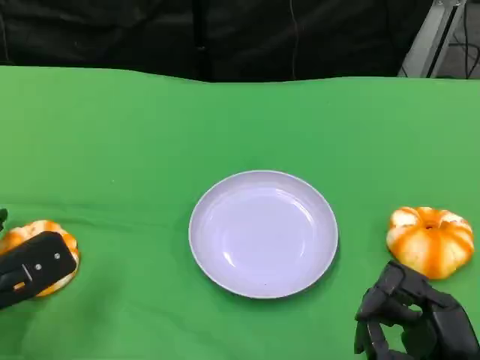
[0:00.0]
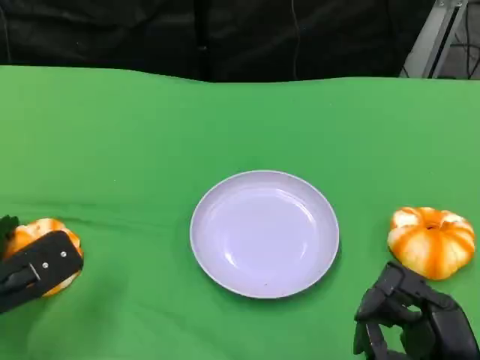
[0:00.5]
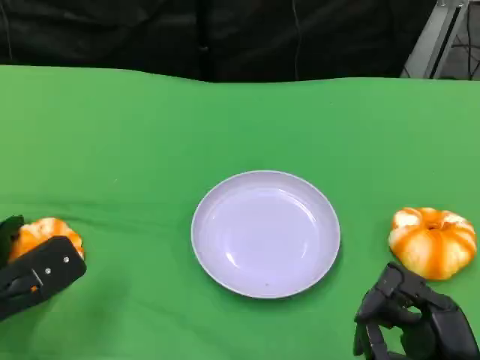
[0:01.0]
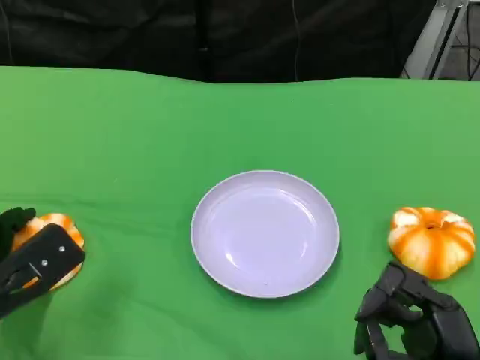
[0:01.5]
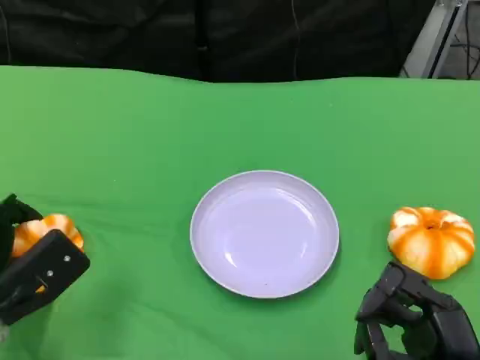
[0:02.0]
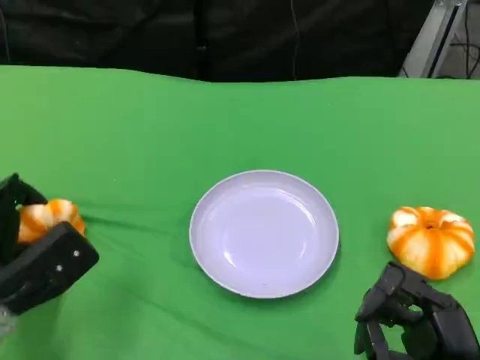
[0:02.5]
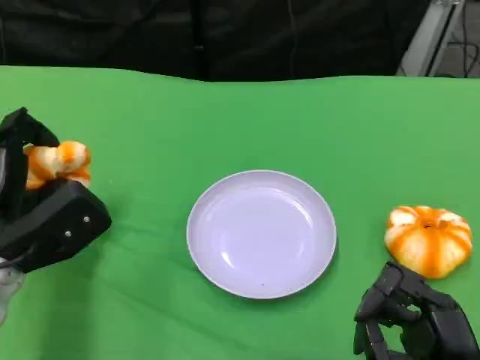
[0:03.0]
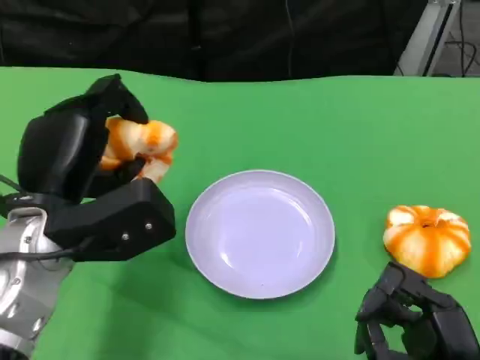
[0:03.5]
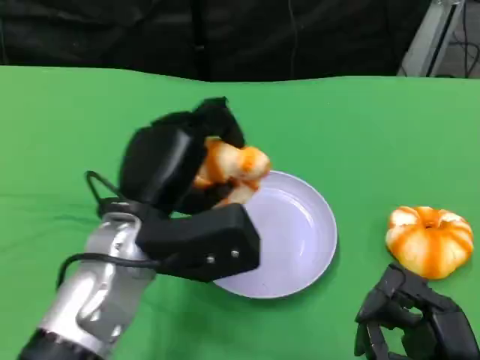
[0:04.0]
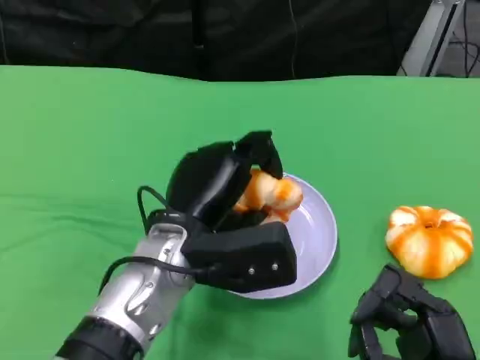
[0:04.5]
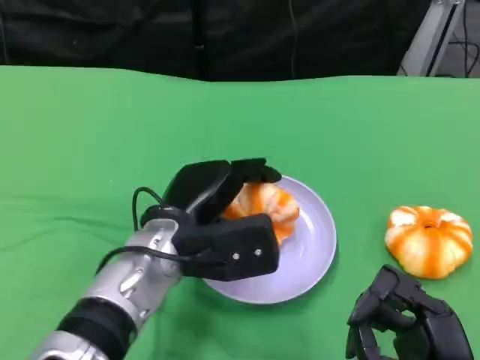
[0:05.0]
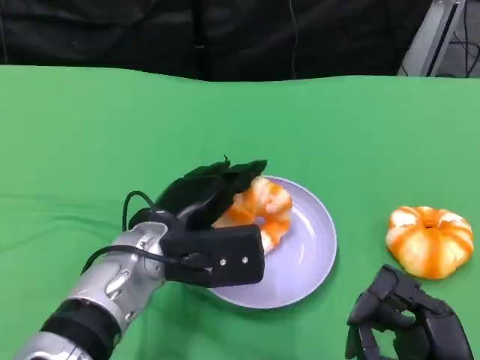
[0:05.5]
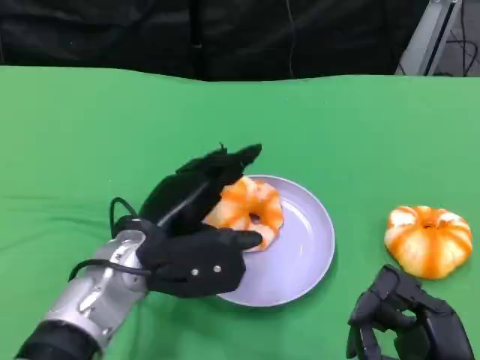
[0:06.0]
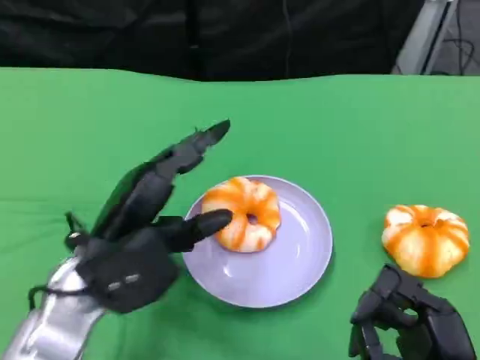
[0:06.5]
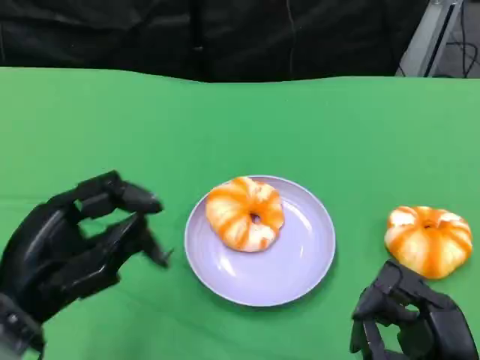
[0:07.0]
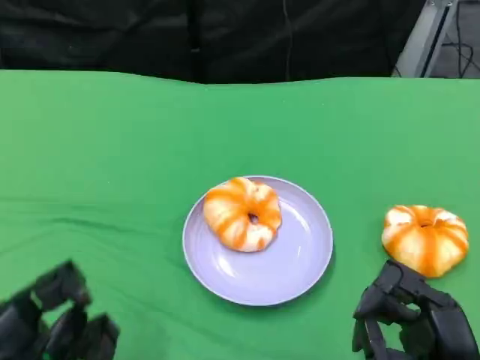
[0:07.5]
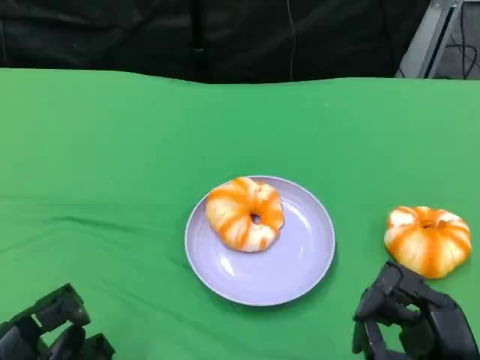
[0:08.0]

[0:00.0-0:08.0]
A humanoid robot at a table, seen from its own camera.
Task of the whole recording: Grasp the bread from the table and place it into the plate.
0:00.0 to 0:02.0: The hands move only a little.
0:02.0 to 0:04.0: The left hand heads to the right and upward, covering roughly 20 cm.
0:06.0 to 0:08.0: The left hand heads to the left and backward, covering roughly 20 cm.

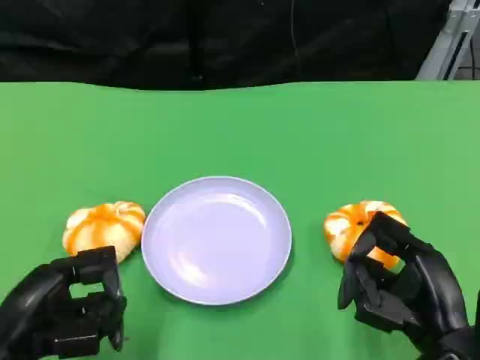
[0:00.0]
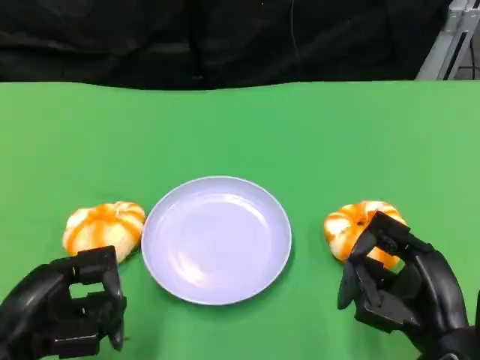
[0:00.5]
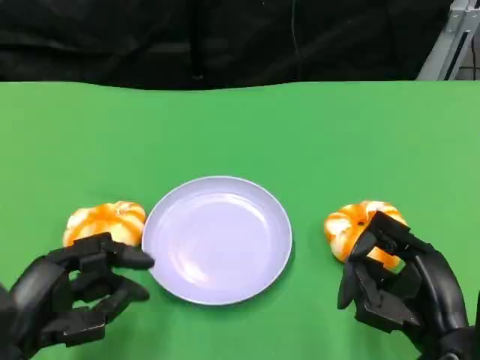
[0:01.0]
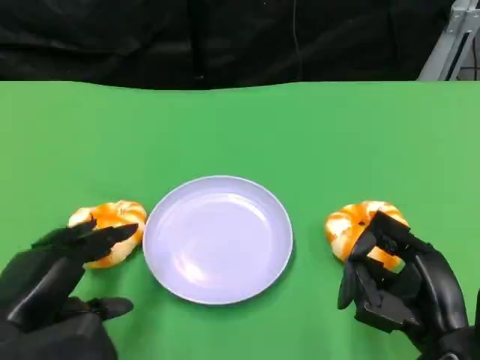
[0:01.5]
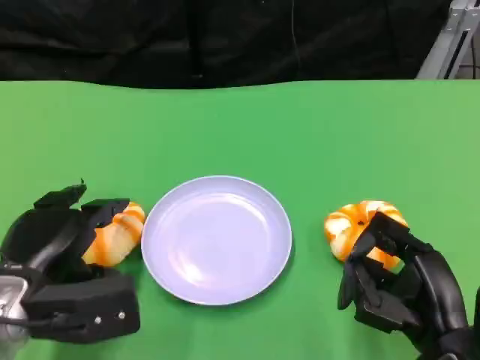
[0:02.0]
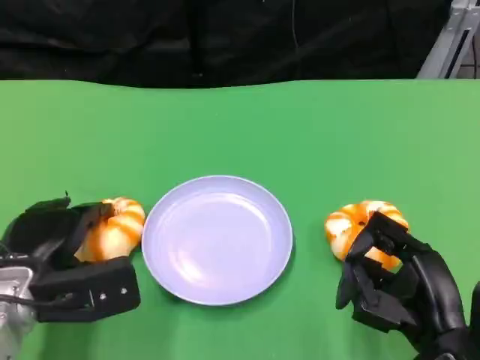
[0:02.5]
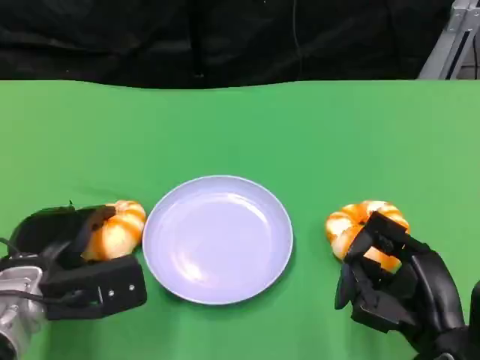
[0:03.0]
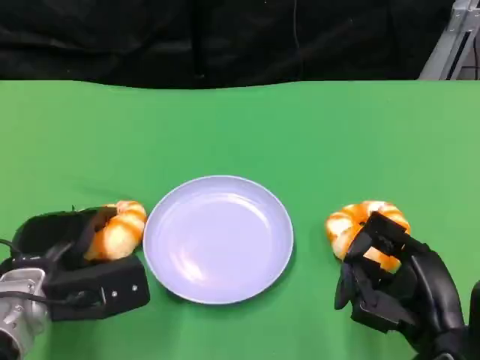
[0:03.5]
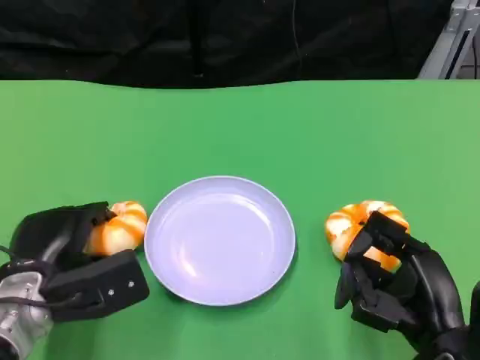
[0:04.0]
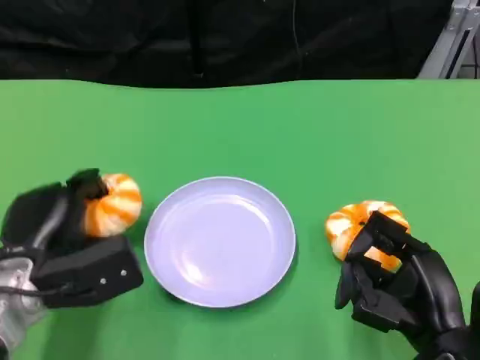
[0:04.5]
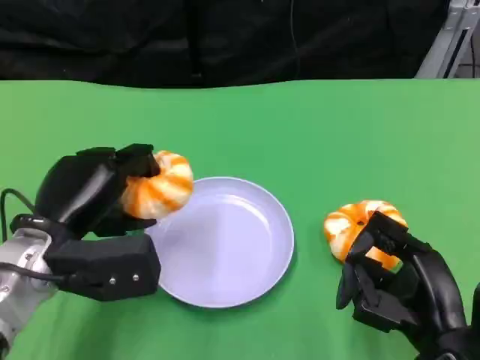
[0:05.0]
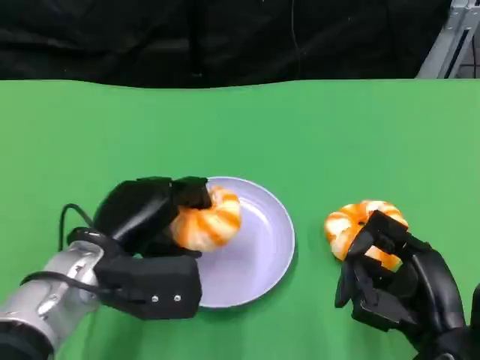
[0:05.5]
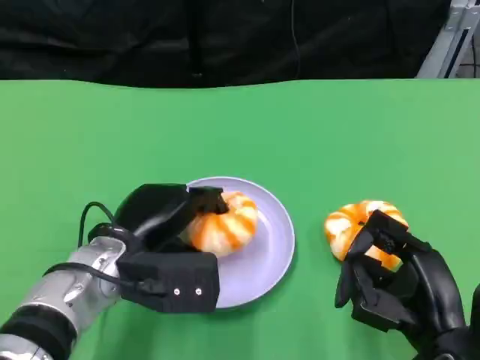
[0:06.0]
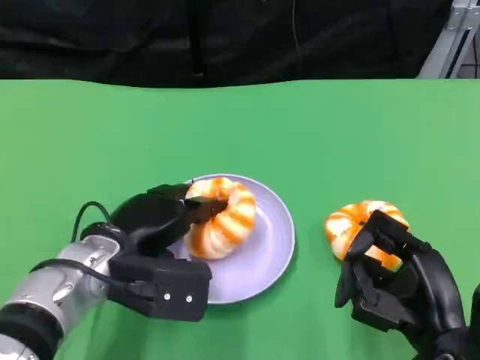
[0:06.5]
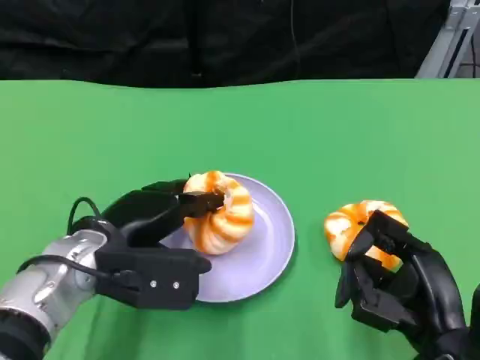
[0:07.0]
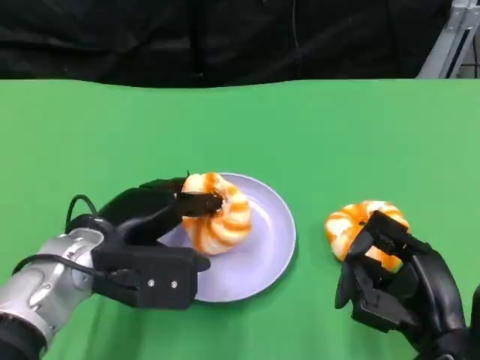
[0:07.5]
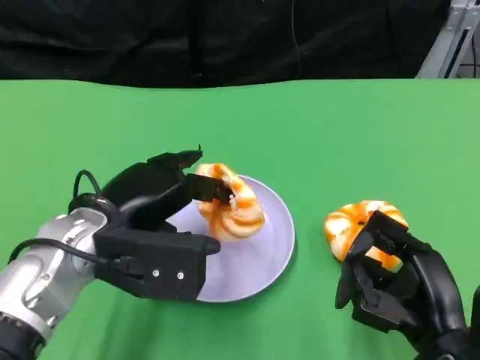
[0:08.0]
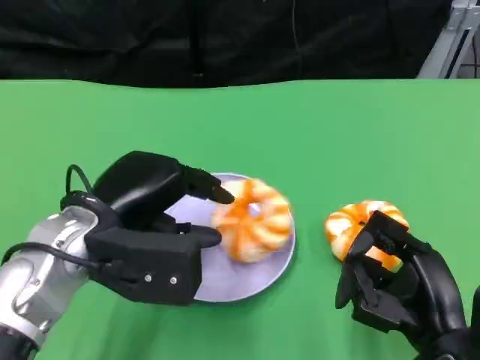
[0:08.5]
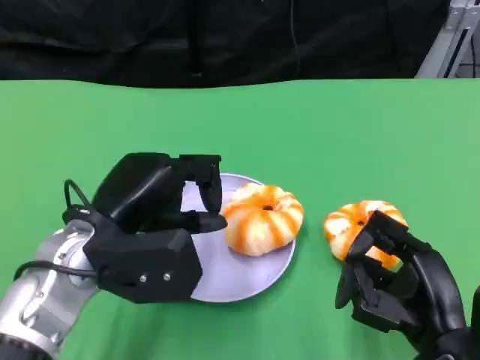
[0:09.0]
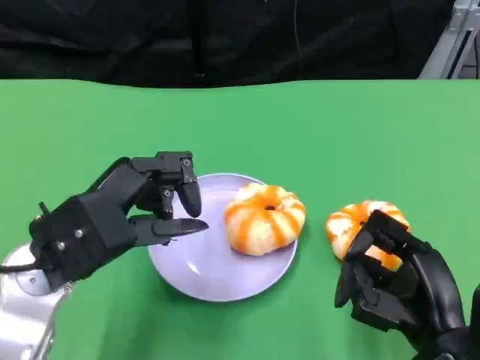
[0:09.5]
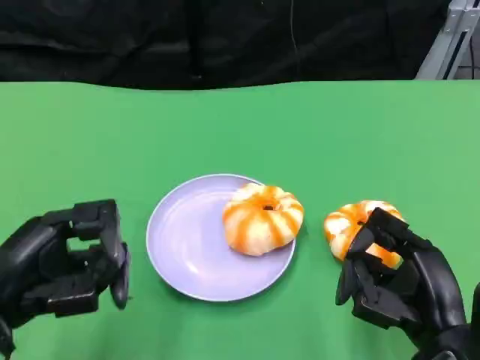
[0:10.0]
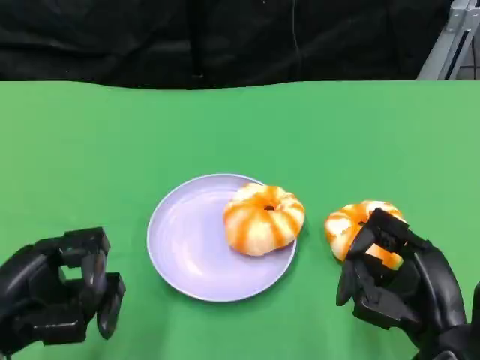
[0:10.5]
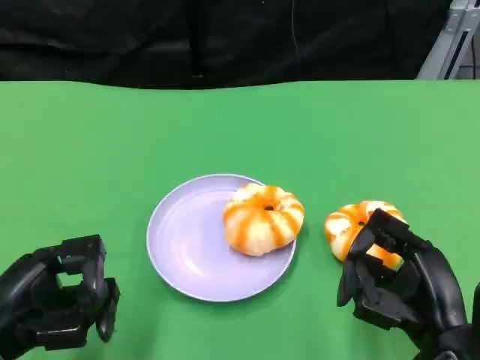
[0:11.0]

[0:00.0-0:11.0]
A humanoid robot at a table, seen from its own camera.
Task of the whole recording: Grasp the bread from the table and place it into the plate.
0:00.0 to 0:02.0: The left hand moves forward, some 5 cm.
0:02.0 to 0:03.5: The hands make only small movements.
0:03.5 to 0:05.5: The left hand heads to the right, covering approximately 5 cm.
0:05.5 to 0:07.5: The hands make only small movements.
0:09.0 to 0:11.0: The left hand is displaced to the left, backward and downward by roughly 15 cm.

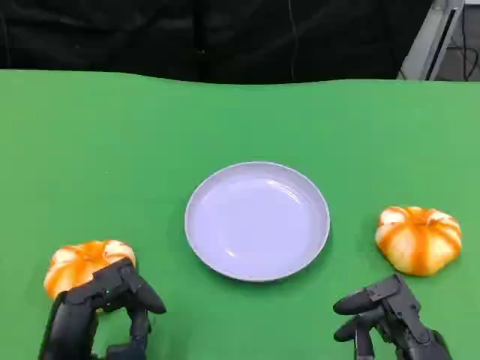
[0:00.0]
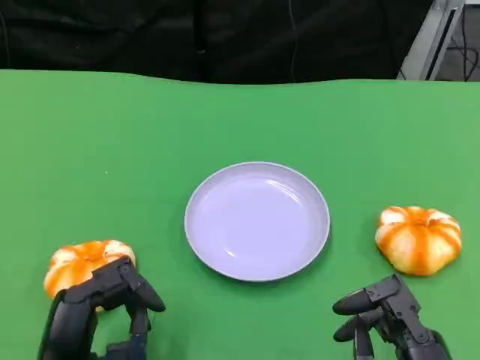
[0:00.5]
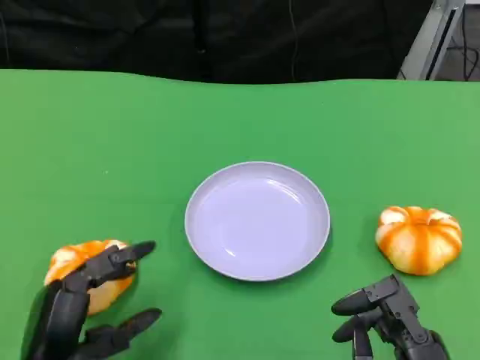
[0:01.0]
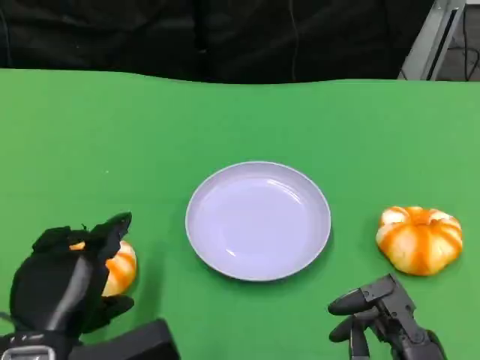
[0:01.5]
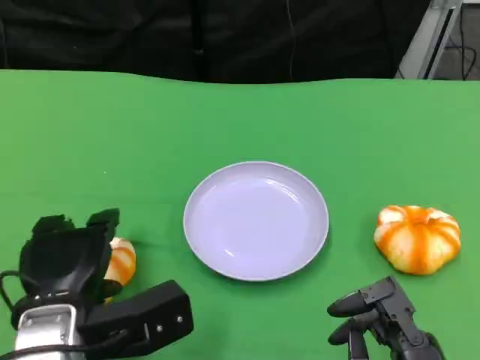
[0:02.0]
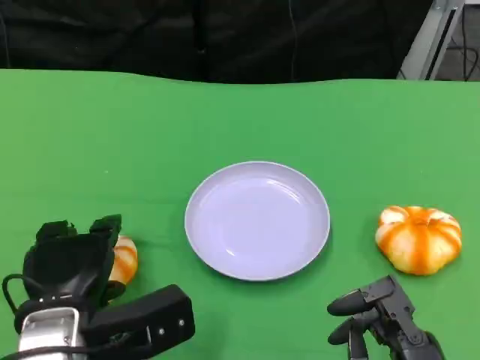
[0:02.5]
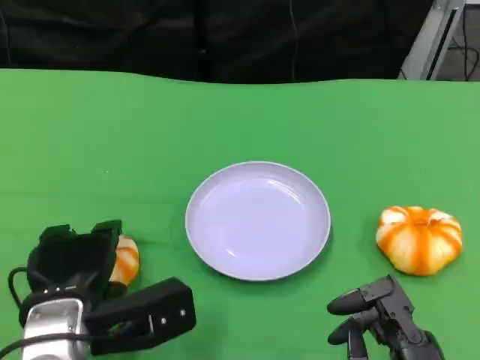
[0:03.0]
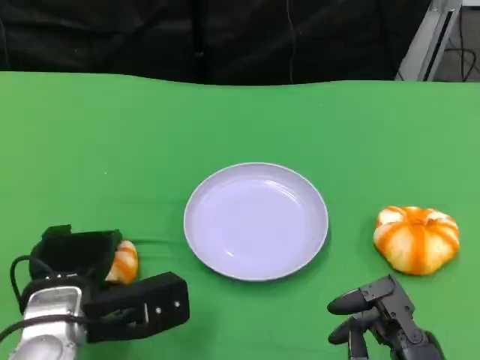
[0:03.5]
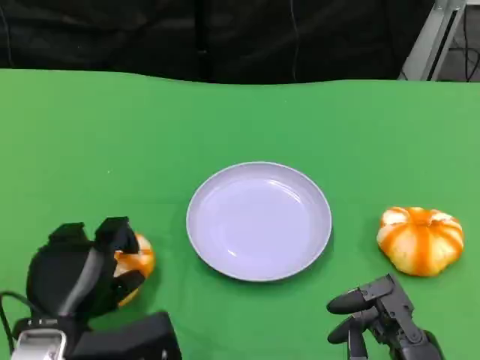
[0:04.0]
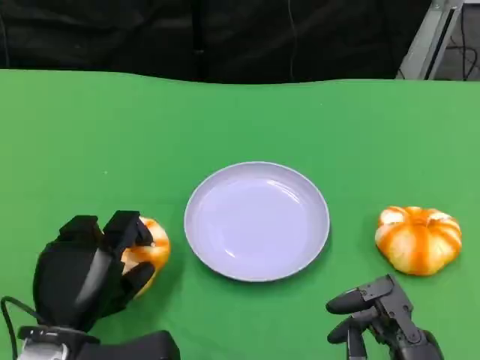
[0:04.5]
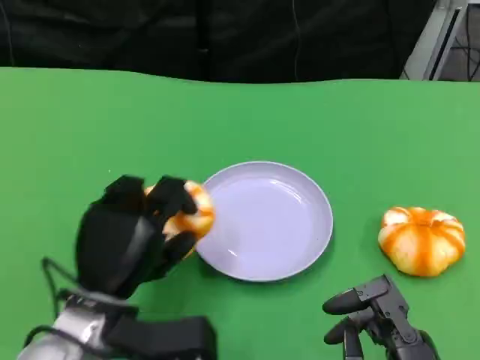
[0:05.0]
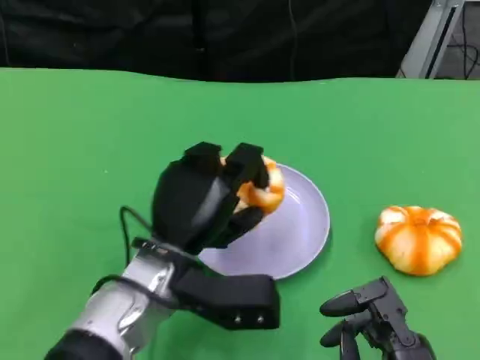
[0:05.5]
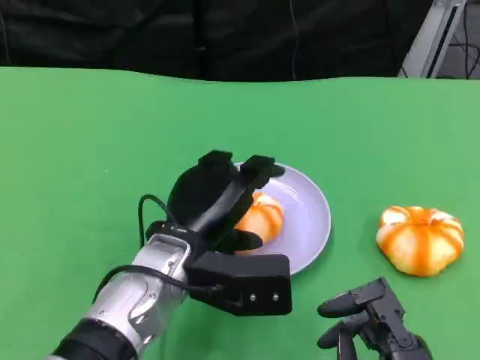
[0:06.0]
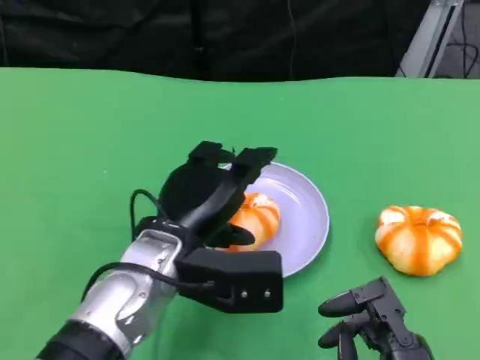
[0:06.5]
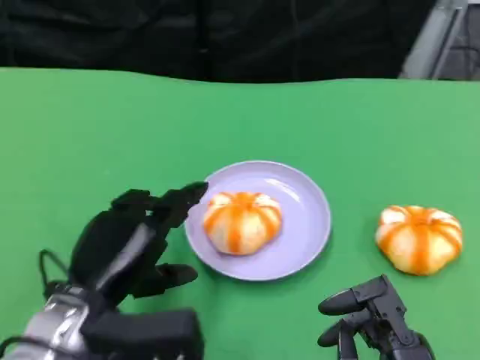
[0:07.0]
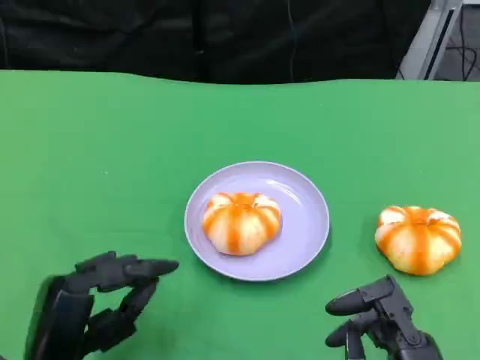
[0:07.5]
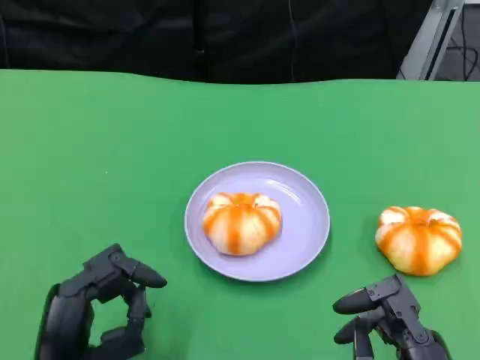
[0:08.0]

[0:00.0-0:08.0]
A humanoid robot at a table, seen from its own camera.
Task of the whole recording: Grasp the bread from the table and place it into the plate.
0:00.0 to 0:02.0: The left hand heads forward, covering some 5 cm.
0:04.0 to 0:06.0: The left hand shifts some 15 cm to the right, forward and upward.
0:06.0 to 0:08.0: The left hand heads backward, to the left and downward, covering roughly 15 cm.
